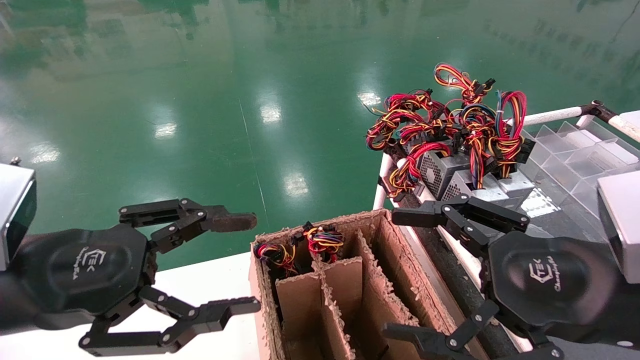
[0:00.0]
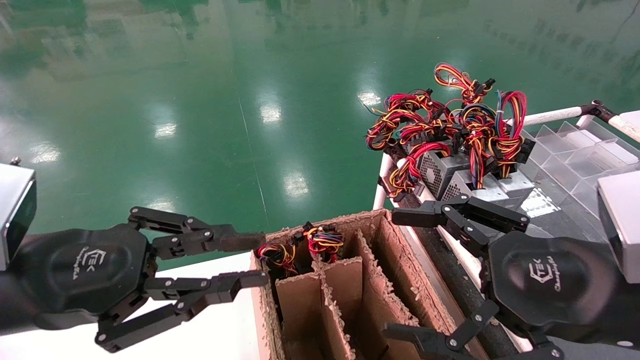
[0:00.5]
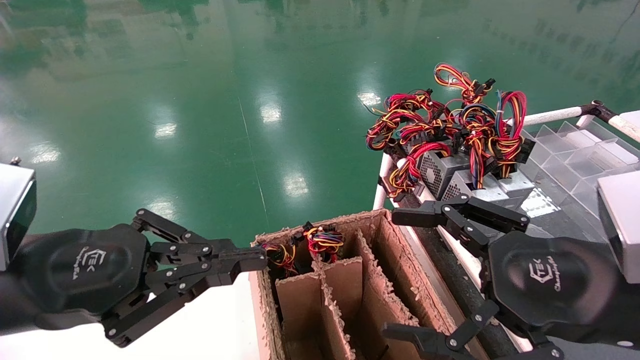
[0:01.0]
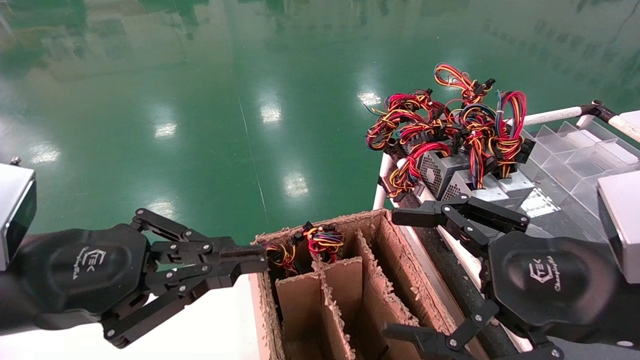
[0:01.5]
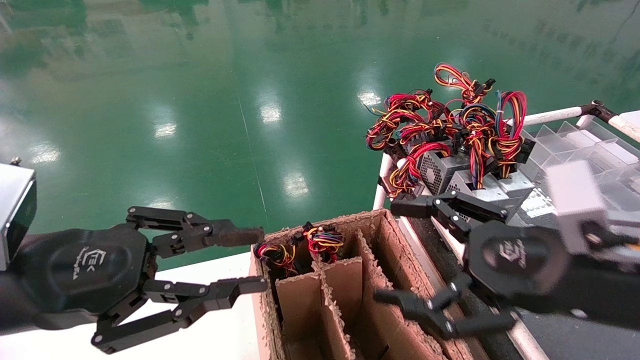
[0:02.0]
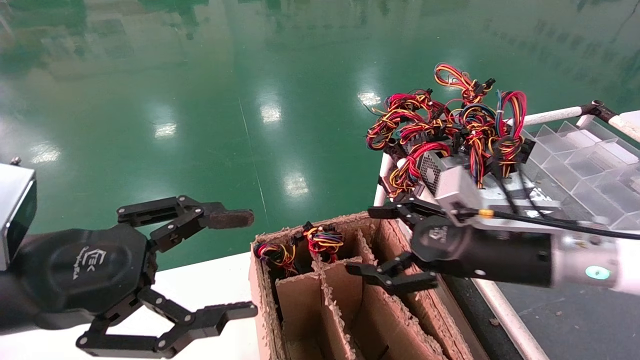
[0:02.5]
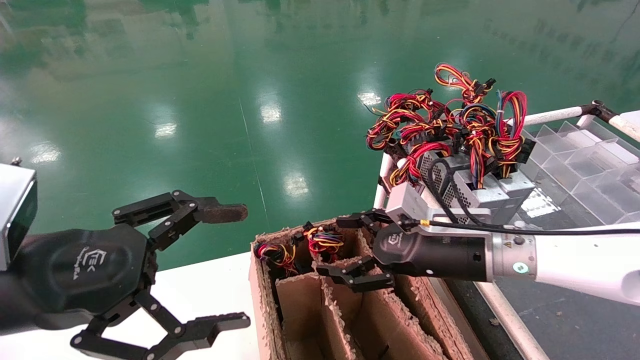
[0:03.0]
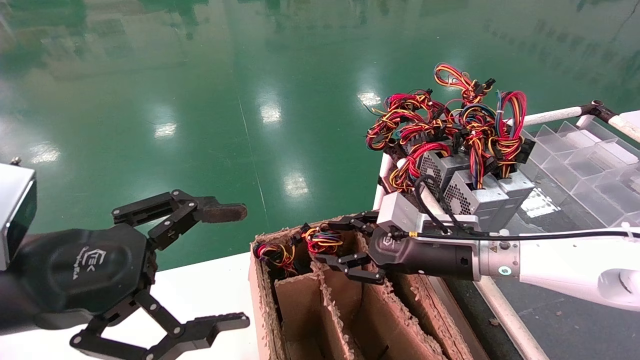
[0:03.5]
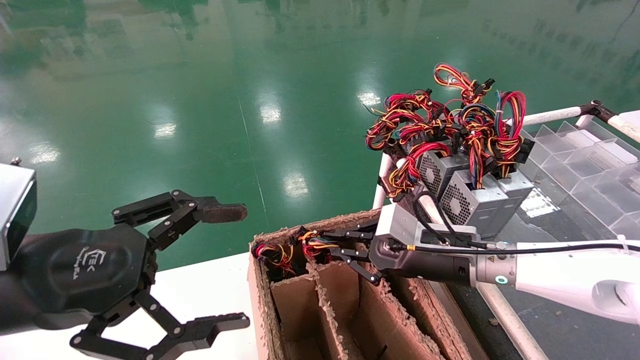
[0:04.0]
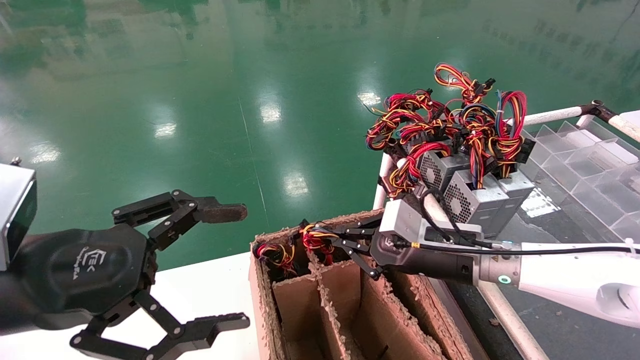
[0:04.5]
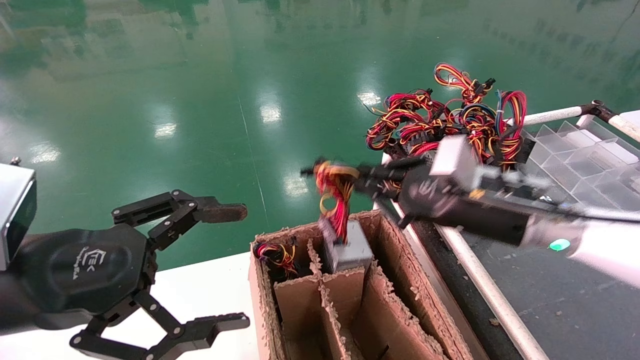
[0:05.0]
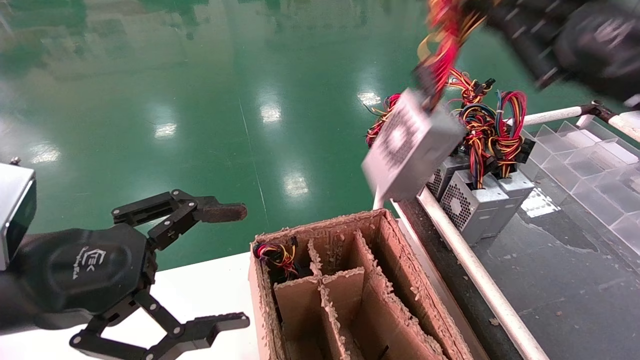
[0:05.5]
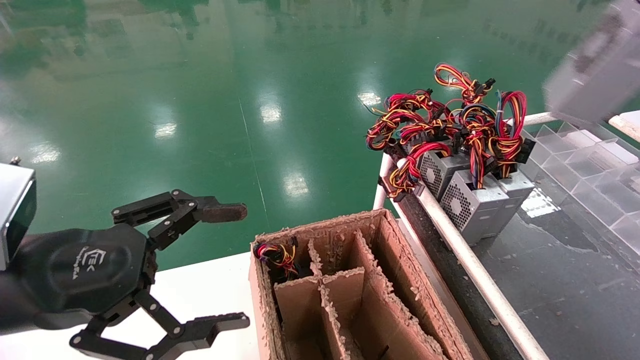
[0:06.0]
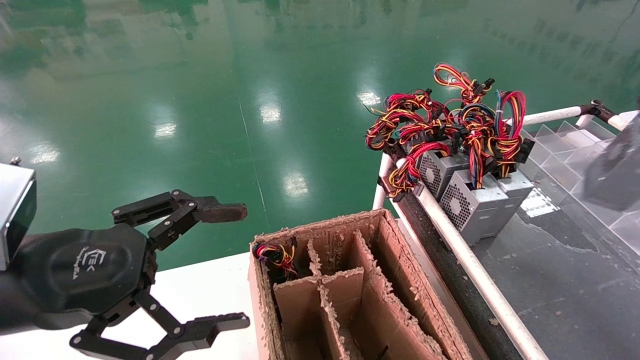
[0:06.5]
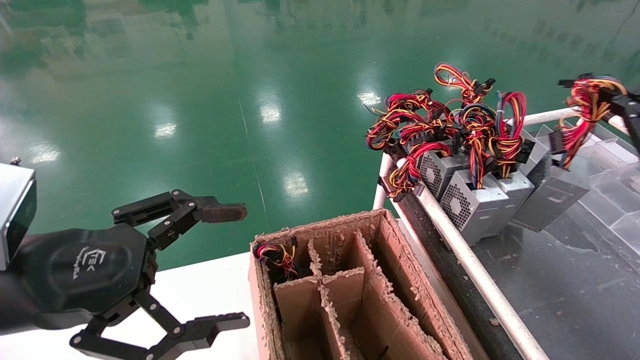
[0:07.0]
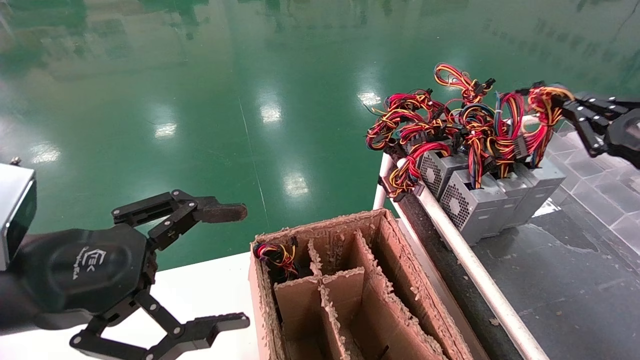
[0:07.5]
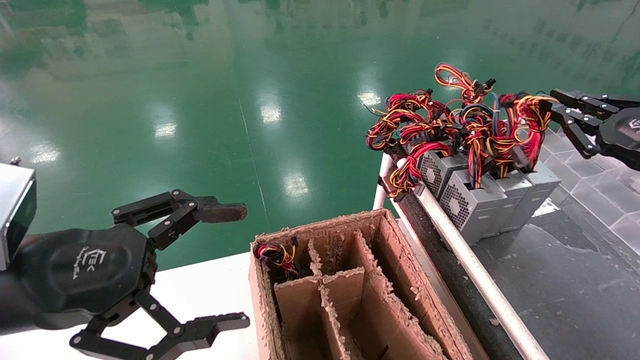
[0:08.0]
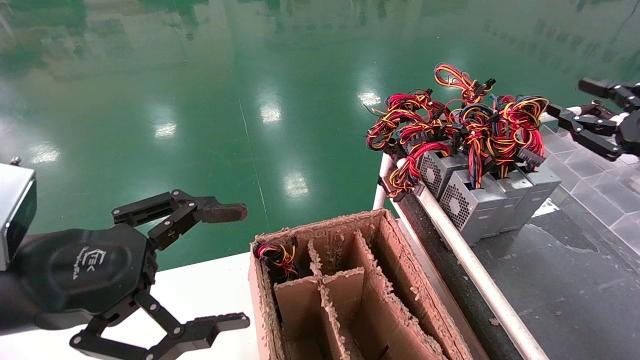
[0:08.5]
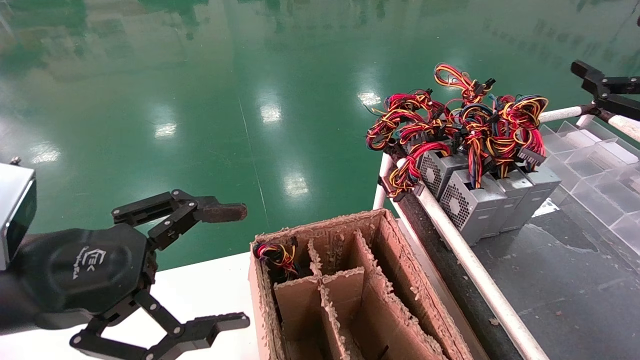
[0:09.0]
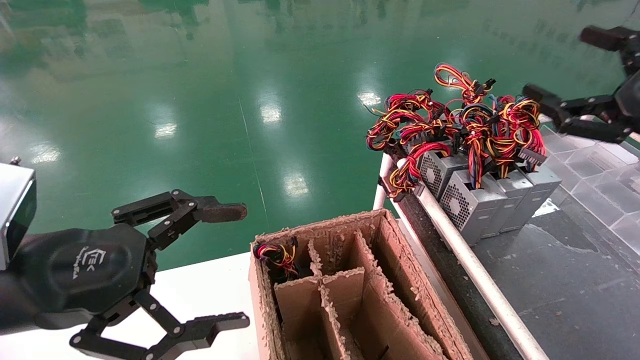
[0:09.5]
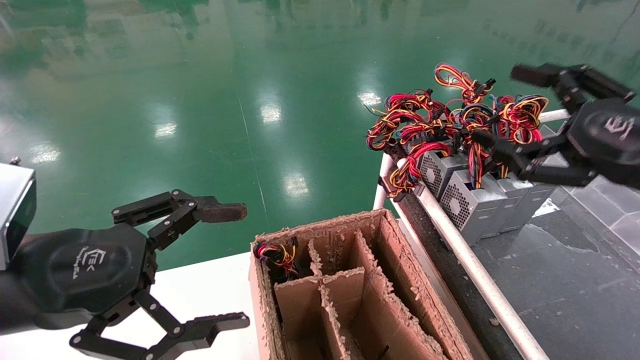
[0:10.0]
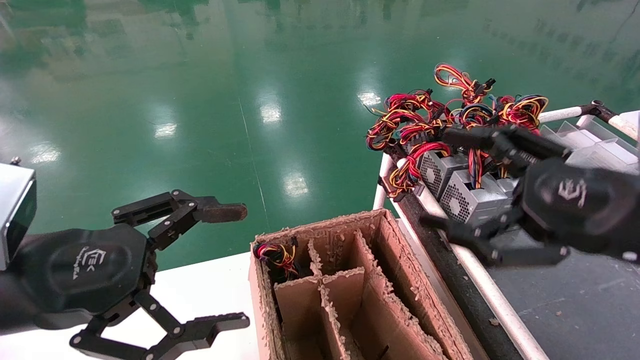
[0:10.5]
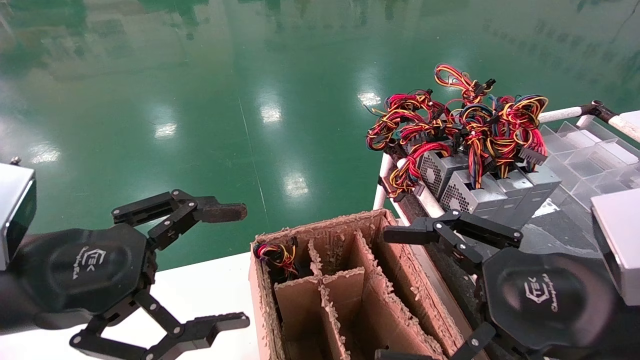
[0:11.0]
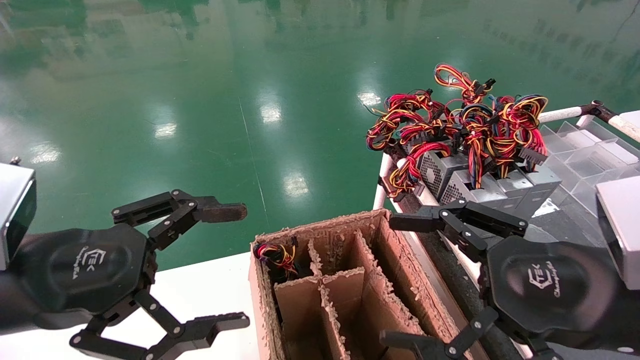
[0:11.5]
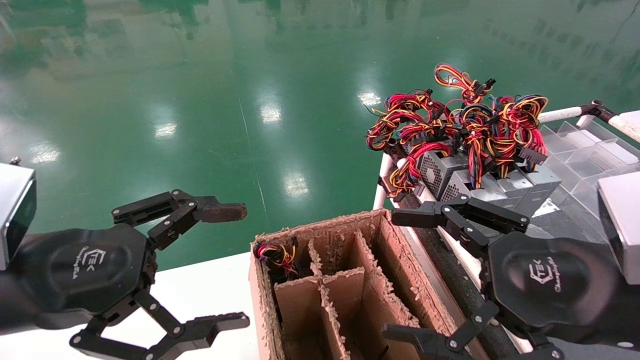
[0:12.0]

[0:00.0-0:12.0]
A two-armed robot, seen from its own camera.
Step, 0:01.0 to 0:04.0: Grab and lift the power supply from the large box.
Step, 0:04.5 to 0:08.0: Place the power supply on the operating table.
0:00.0 to 0:02.0: The left gripper closes its fingers.
0:02.0 to 0:04.0: The right gripper heads forward, downward and to the left, covering some 20 cm, and closes up. The left gripper opens.
0:04.0 to 0:06.0: The right gripper moves to the right, upward and backward, roughly 40 cm.
0:06.0 to 0:08.0: The right gripper shifts roughly 15 cm downward and forward.
0:08.0 to 0:10.0: The right gripper heads to the left and backward, covering approximately 15 cm, and opens up.
0:10.0 to 0:12.0: The right gripper travels to the left, backward and downward by approximately 15 cm.
